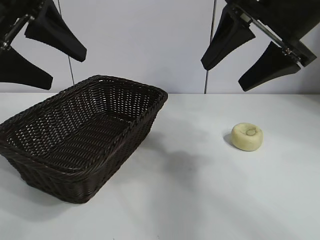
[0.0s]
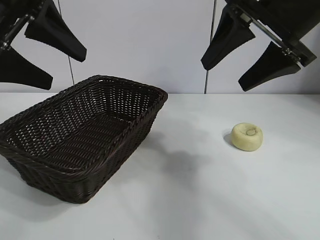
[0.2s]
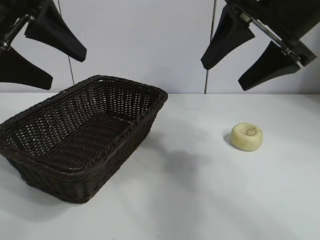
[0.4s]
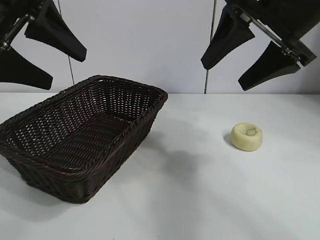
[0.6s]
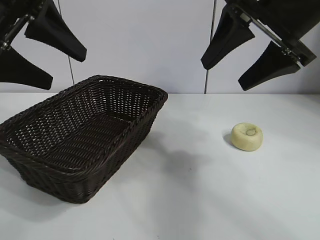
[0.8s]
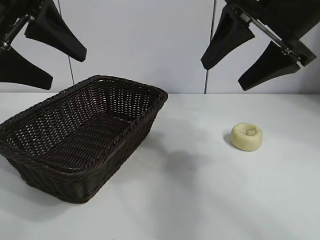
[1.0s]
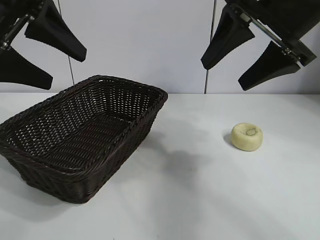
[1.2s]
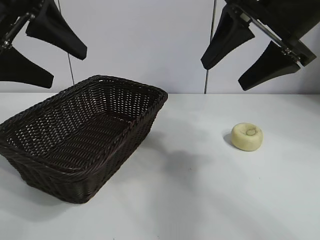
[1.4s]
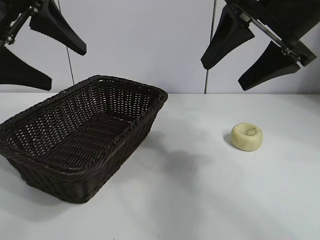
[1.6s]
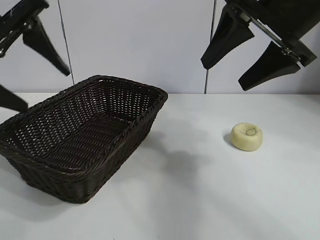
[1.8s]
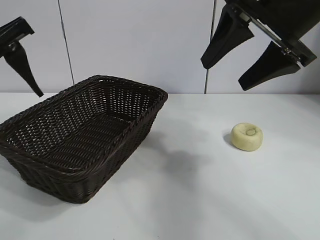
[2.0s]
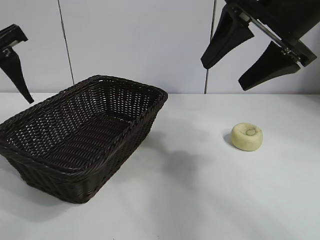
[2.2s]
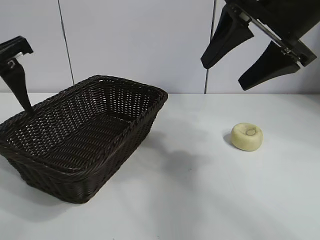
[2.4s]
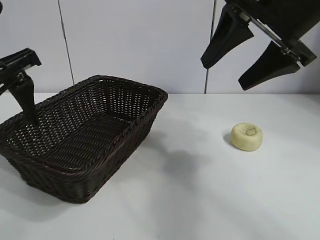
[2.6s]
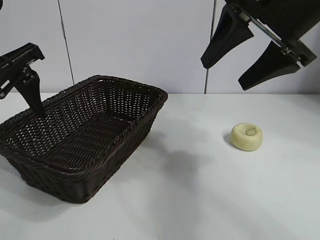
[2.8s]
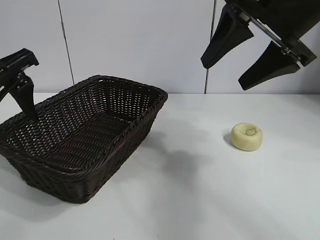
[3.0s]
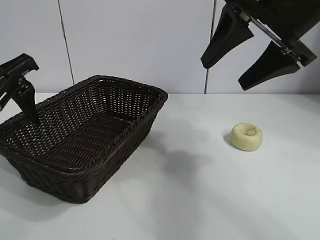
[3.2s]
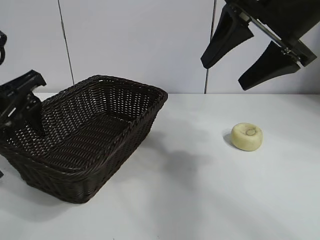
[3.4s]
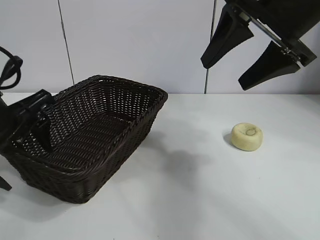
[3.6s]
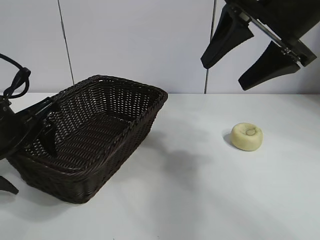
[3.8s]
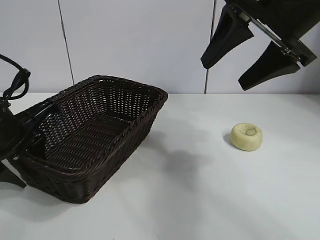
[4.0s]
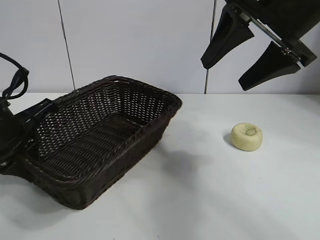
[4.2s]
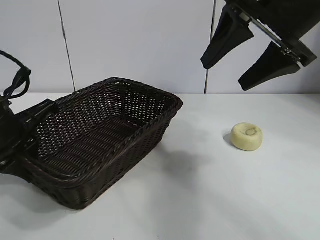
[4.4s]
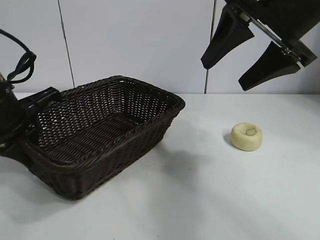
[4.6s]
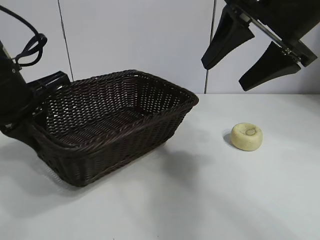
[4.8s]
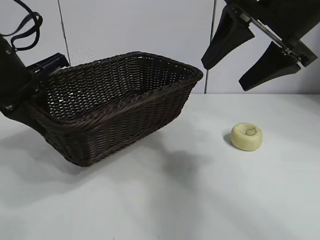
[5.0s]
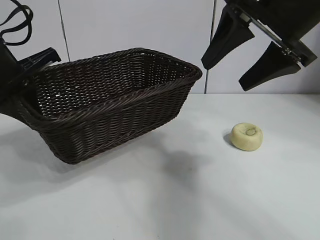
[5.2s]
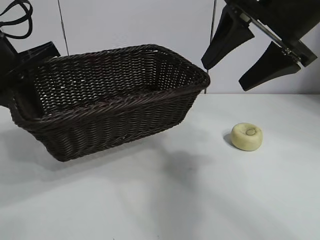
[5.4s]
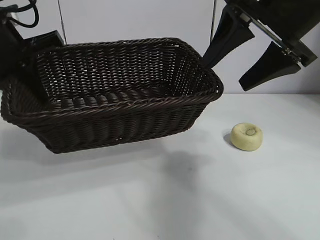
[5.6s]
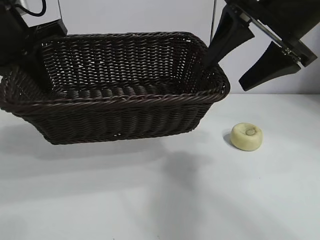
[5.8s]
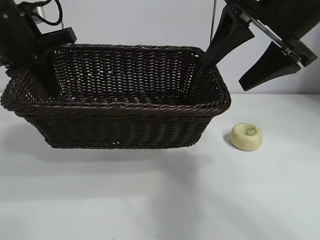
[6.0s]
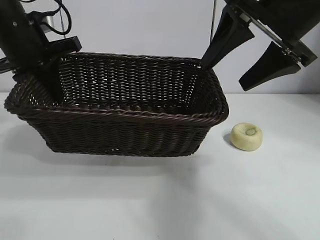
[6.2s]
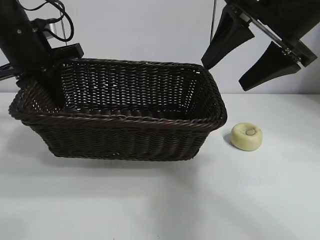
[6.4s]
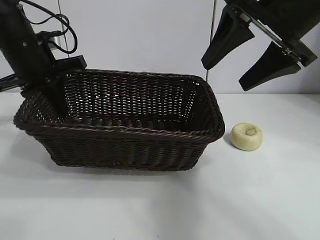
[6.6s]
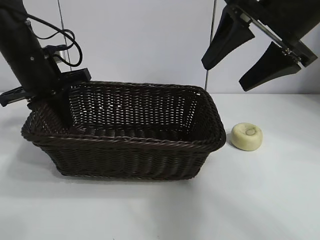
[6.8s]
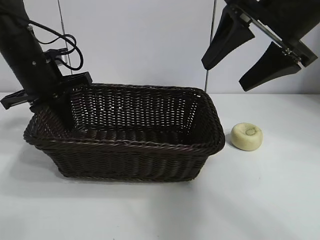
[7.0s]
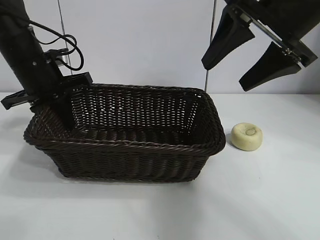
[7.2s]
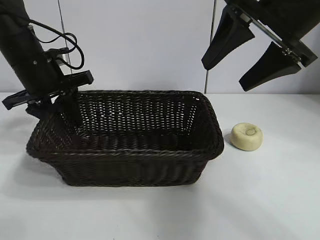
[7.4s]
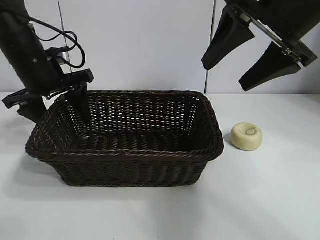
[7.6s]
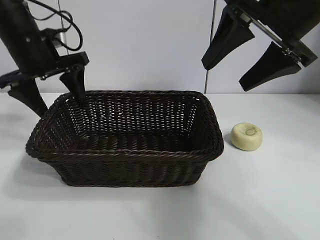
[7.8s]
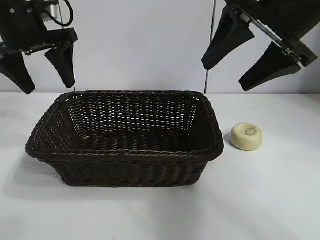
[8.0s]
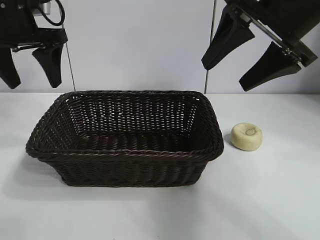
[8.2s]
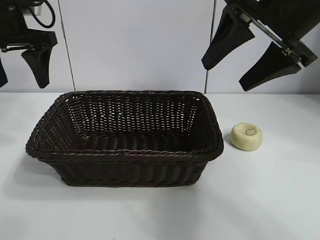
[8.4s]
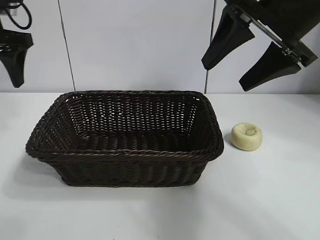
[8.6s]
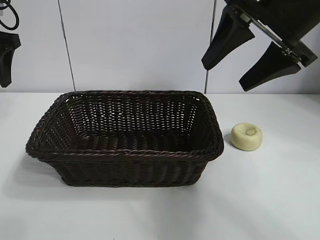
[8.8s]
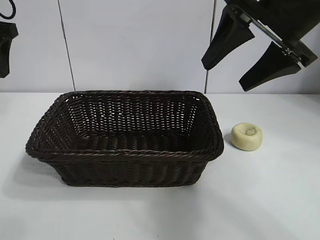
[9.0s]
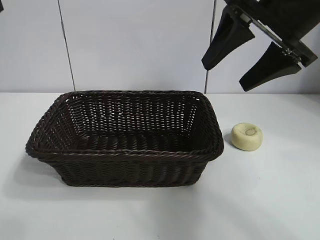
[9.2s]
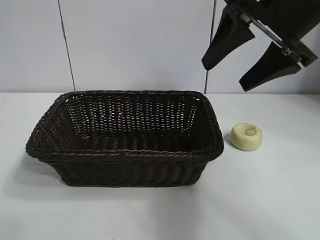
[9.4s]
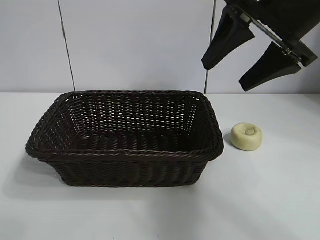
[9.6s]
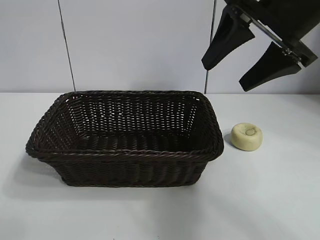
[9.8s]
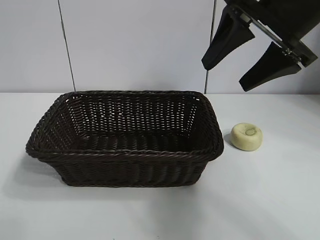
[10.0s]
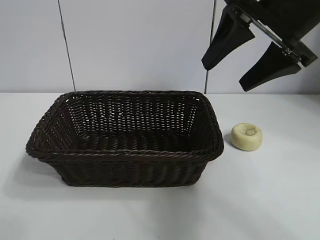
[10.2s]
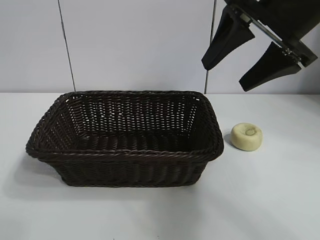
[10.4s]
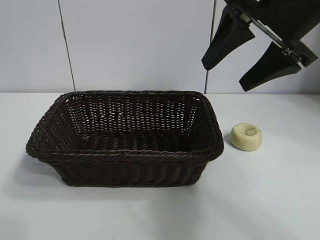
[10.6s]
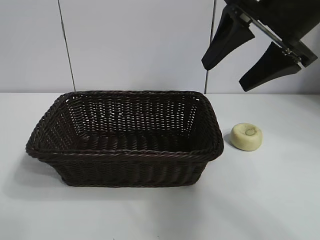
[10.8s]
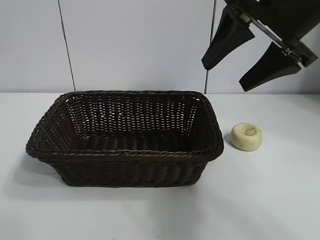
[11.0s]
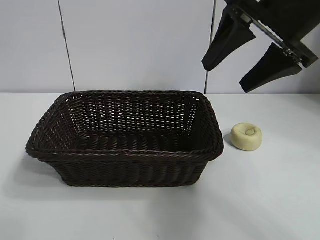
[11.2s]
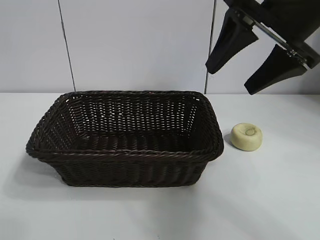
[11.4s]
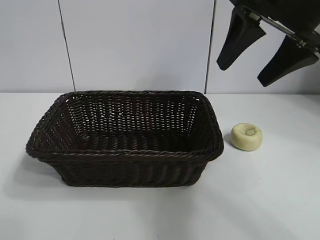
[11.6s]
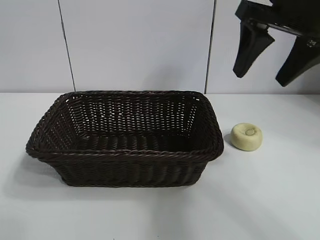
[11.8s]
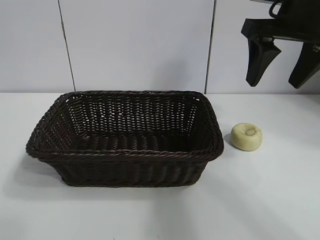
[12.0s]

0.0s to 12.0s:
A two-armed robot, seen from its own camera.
Task of the whole recording: pick up the egg yolk pastry and put it into the basket.
Step, 1.4s to 4.2s: Grasp the basket with left gripper.
Step, 4.4s to 7.6s: Place the basket in the center of view with left gripper.

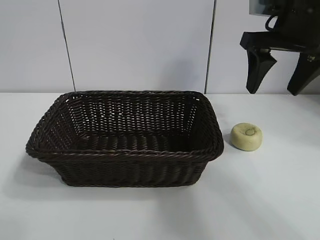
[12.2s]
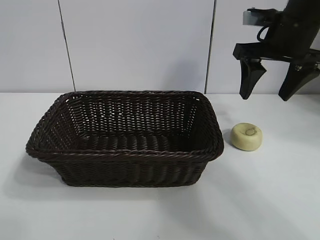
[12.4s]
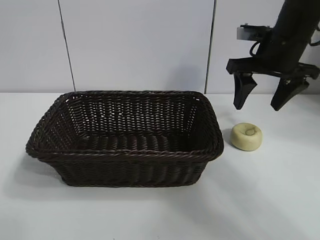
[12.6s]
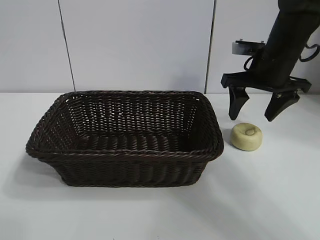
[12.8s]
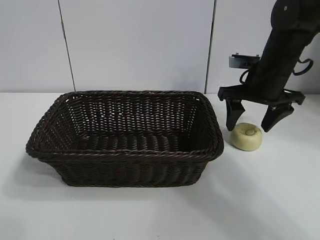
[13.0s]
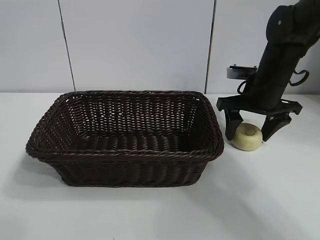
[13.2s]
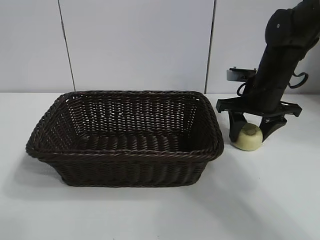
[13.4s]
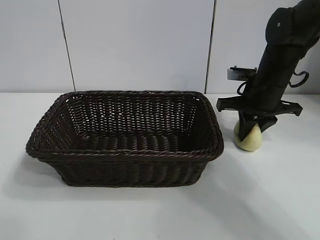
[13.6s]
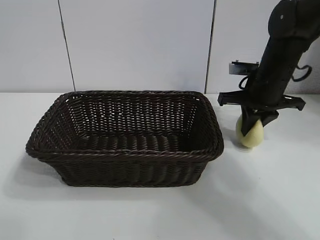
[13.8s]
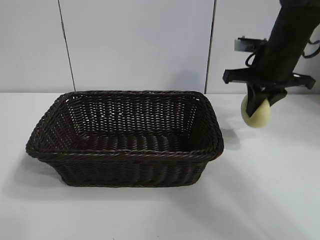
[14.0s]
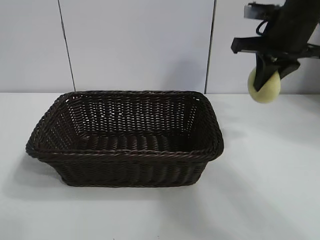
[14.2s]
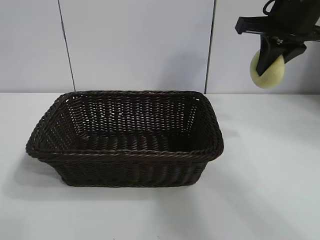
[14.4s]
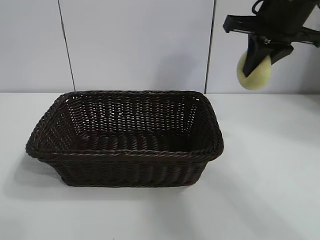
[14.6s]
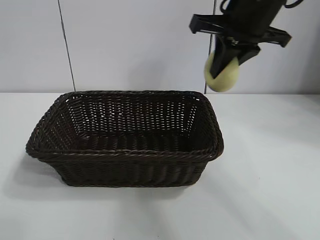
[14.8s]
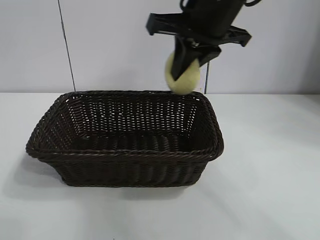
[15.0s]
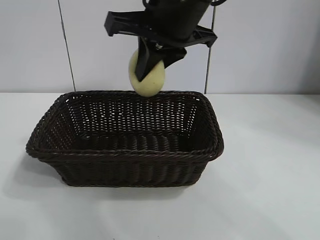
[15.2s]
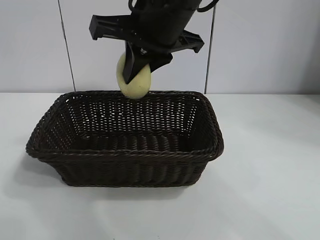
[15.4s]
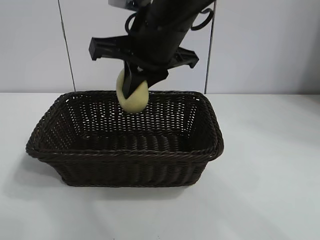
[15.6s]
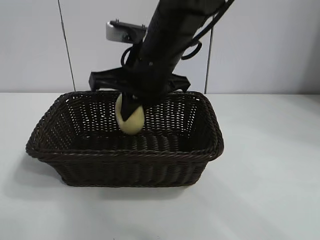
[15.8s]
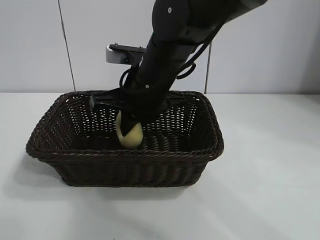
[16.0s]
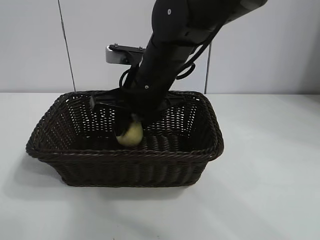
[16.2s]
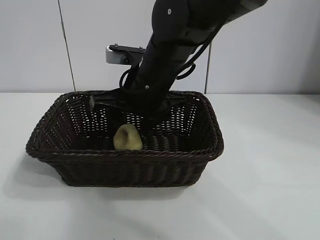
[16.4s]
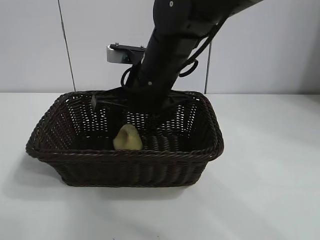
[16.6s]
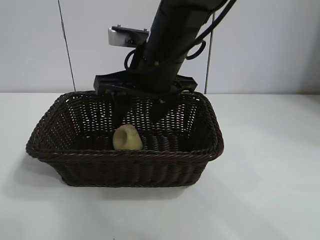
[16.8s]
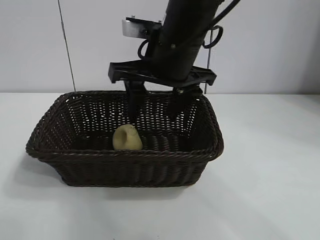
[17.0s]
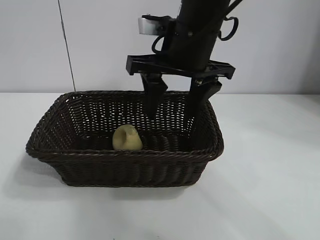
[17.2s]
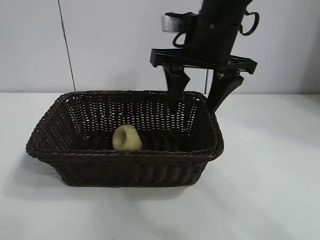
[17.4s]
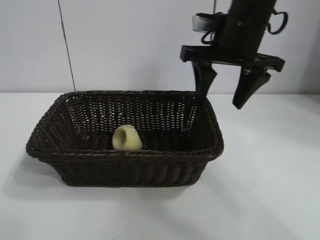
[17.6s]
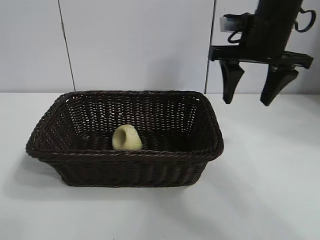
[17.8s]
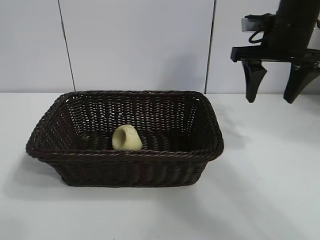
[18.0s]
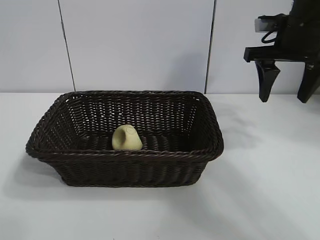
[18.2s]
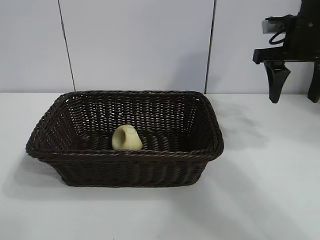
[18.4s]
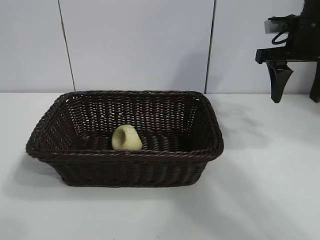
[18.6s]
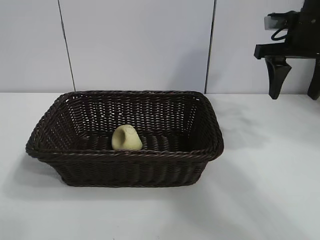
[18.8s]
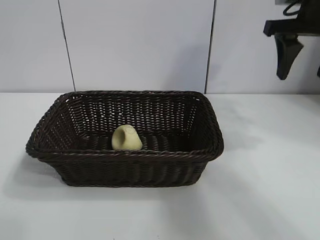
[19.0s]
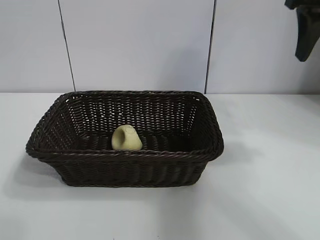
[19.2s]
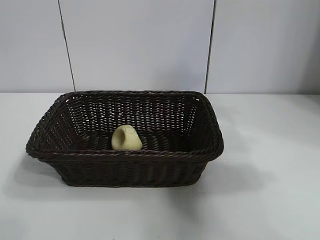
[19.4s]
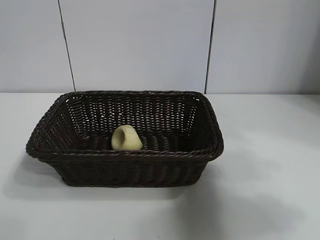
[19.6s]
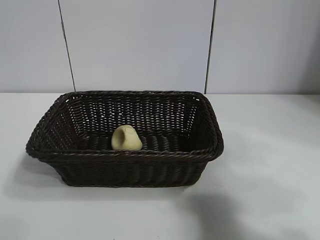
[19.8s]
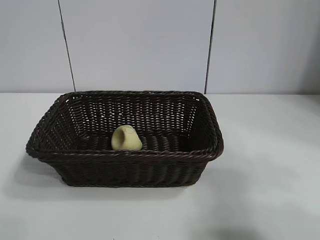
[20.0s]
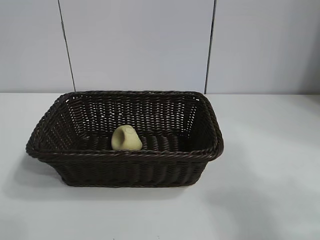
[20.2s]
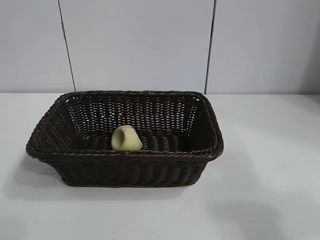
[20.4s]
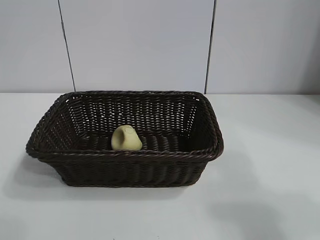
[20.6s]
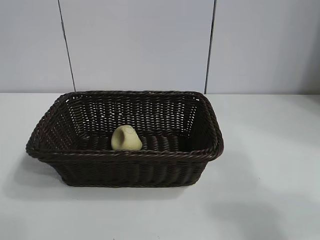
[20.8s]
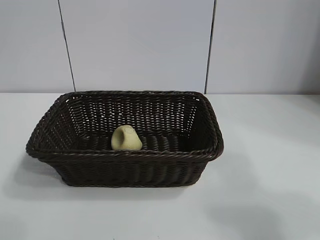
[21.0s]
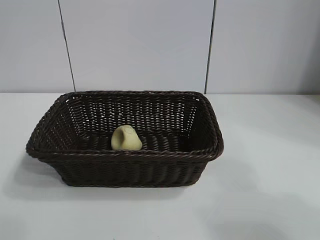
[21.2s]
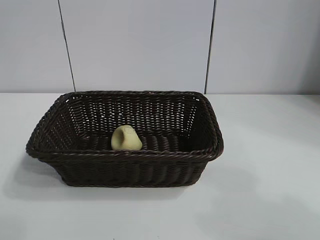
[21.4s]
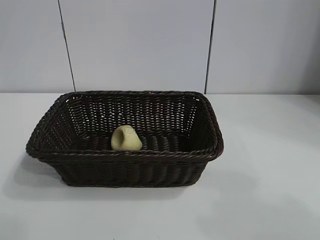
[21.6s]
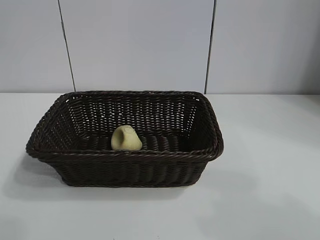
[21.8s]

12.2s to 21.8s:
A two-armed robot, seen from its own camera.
Task of the whole recording: pick up the egg yolk pastry and put it into the basket.
Step, 13.8s to 16.8s: Place the egg yolk pastry in the basket with right gripper.
